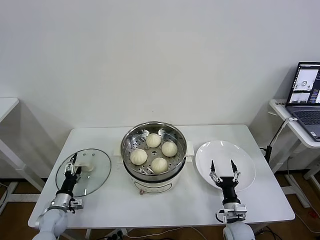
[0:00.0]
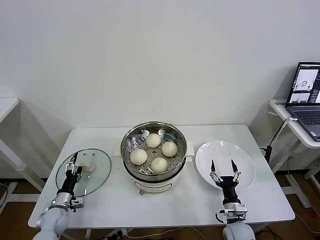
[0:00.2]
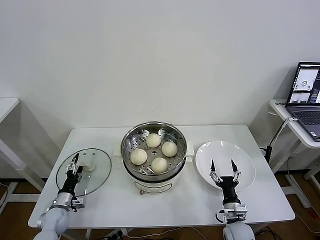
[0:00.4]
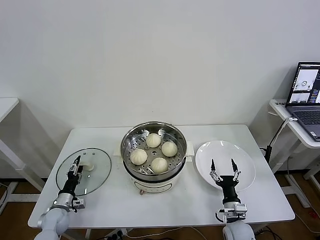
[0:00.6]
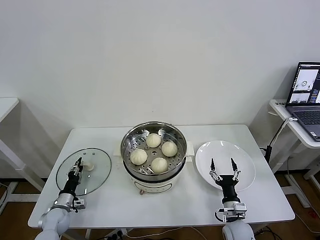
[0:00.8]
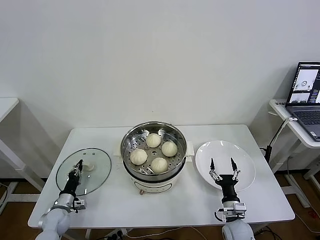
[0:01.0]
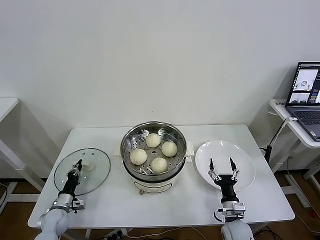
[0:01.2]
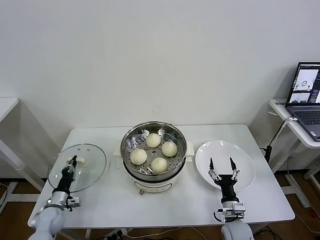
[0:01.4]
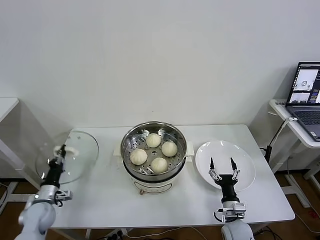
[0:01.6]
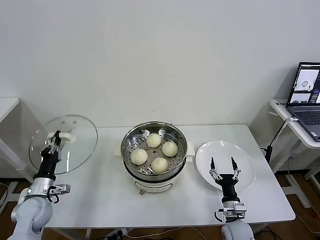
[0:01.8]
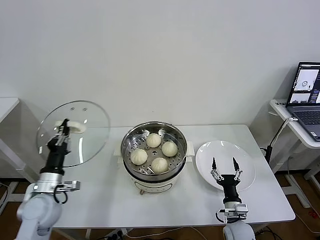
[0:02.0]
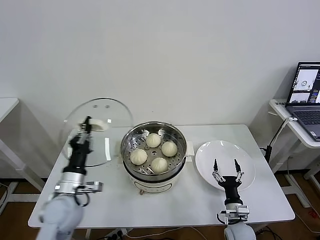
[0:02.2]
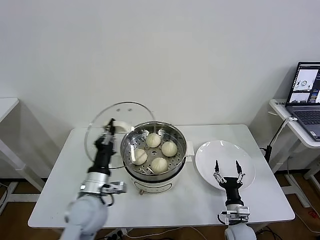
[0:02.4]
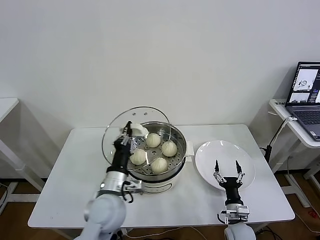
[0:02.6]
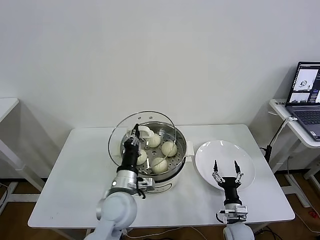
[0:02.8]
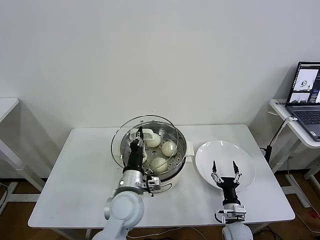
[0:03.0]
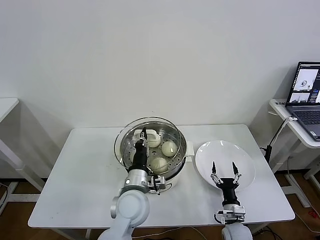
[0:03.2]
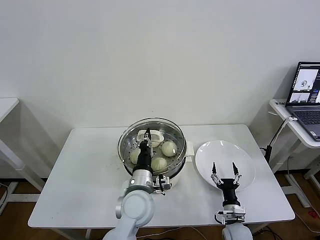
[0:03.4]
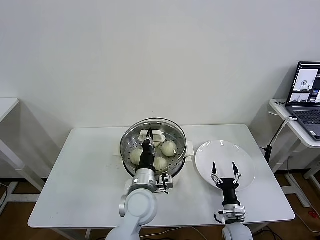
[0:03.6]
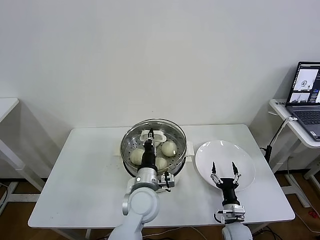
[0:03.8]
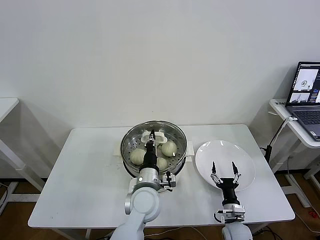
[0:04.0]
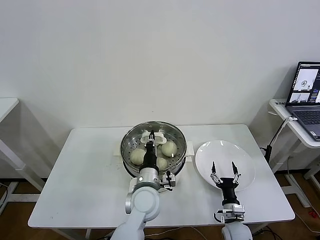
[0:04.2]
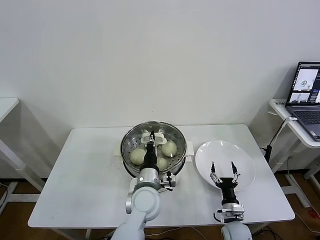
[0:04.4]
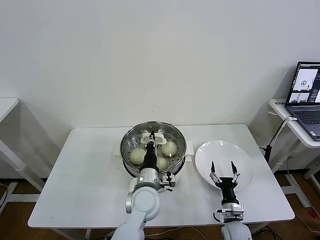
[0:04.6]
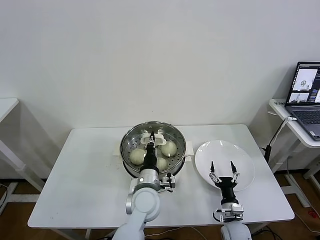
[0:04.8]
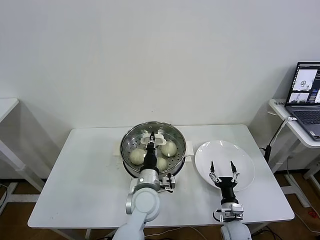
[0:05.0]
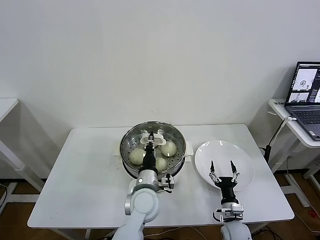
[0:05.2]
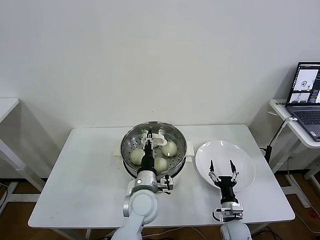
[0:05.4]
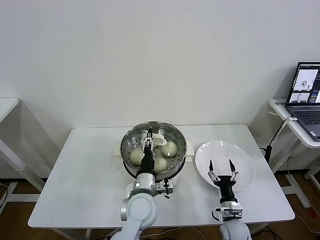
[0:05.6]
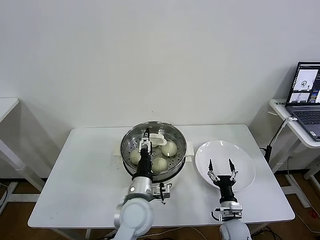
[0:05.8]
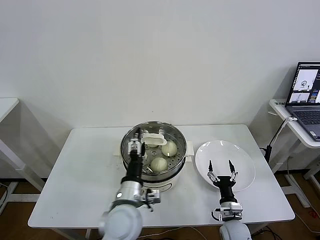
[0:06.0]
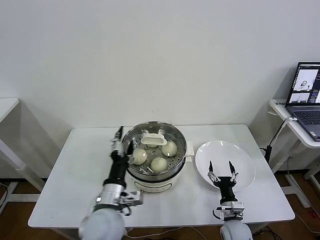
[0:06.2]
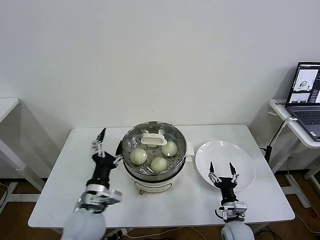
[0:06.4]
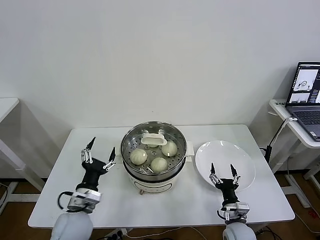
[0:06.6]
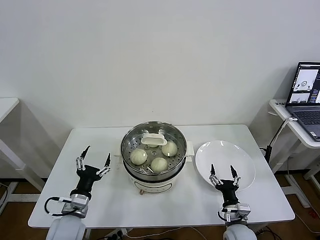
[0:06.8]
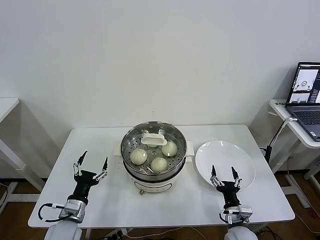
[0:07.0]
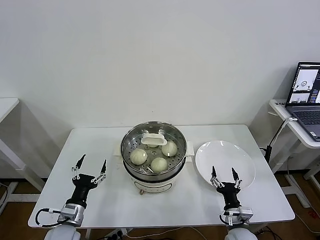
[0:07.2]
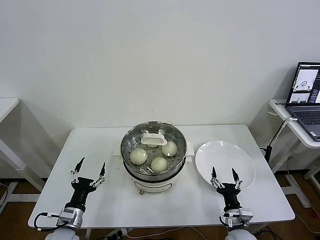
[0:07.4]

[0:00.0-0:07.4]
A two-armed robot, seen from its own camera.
Task of the whole recording: take steamed baozi put them in steamer then cover it.
0:00.0 to 0:01.4: The left gripper closes.
0:01.4 to 0:03.0: The left gripper heads to the right and upward, covering some 35 cm.
0:03.0 to 0:04.4: The left gripper moves to the right, approximately 5 cm.
0:04.4 to 0:06.0: The left gripper travels backward by approximately 5 cm, and opens.
0:06.0 to 0:07.4: The left gripper travels to the left and downward by roughly 25 cm, while the right gripper ends up roughly 5 cm from where it was.
